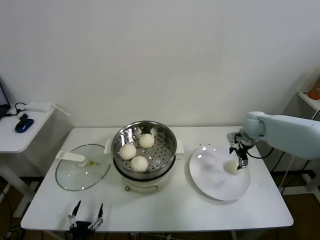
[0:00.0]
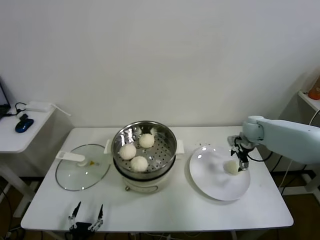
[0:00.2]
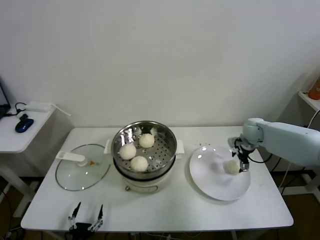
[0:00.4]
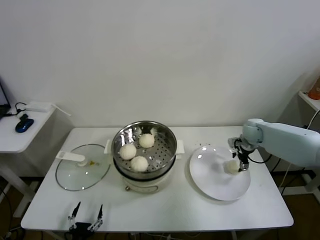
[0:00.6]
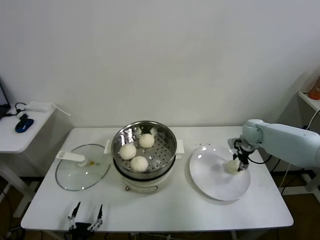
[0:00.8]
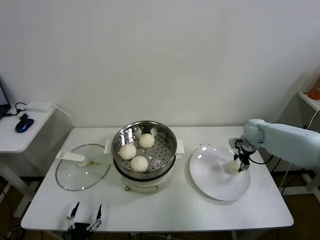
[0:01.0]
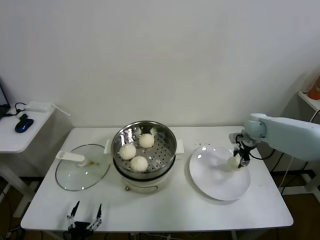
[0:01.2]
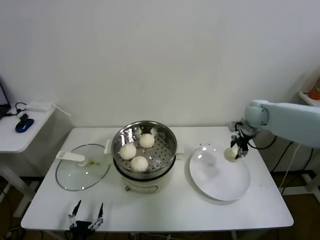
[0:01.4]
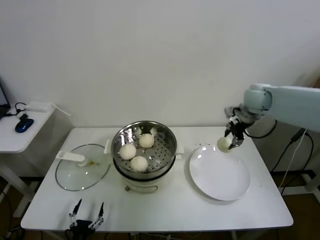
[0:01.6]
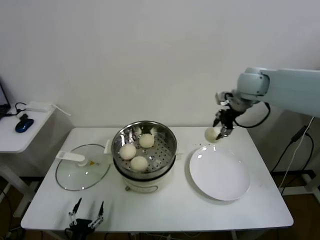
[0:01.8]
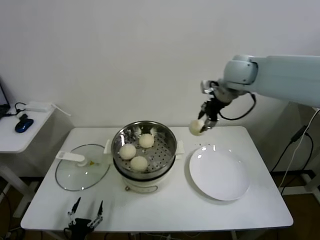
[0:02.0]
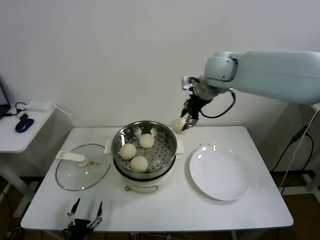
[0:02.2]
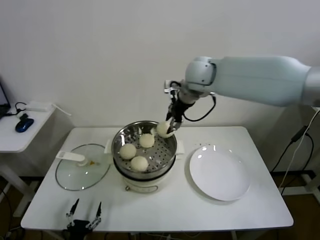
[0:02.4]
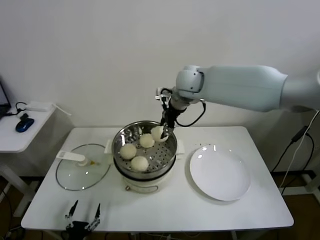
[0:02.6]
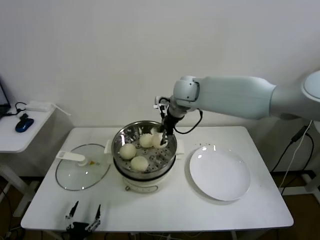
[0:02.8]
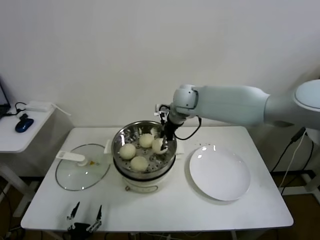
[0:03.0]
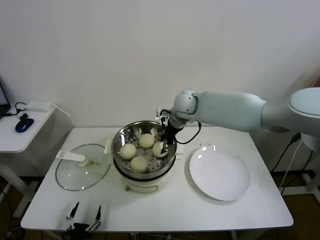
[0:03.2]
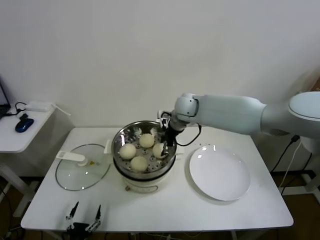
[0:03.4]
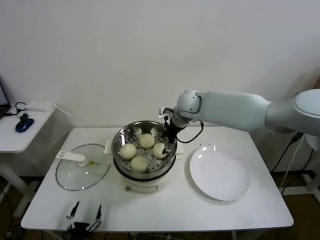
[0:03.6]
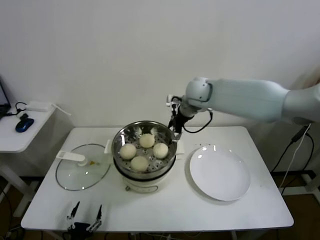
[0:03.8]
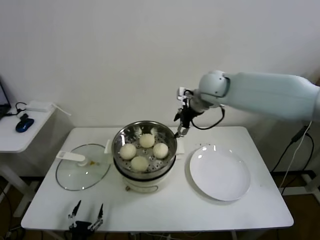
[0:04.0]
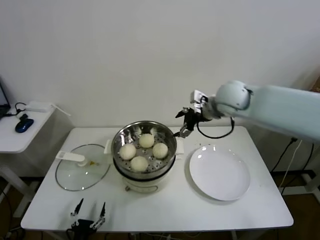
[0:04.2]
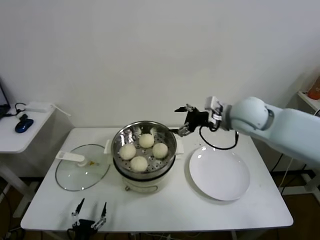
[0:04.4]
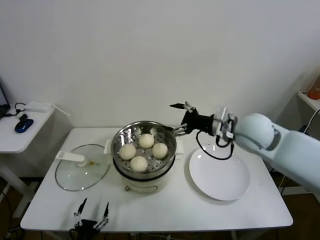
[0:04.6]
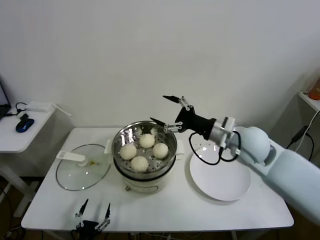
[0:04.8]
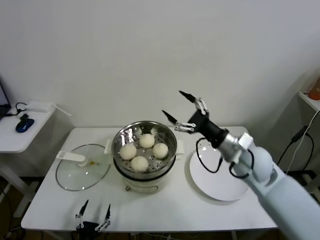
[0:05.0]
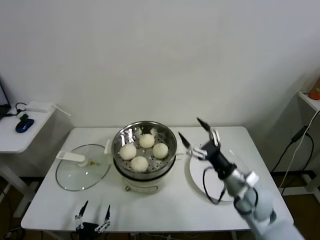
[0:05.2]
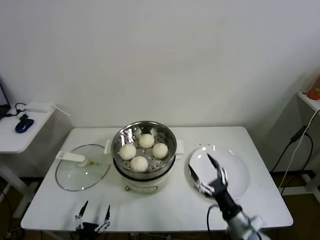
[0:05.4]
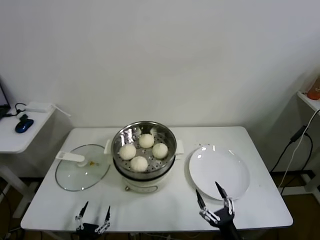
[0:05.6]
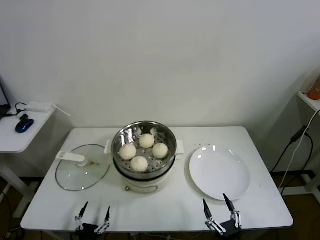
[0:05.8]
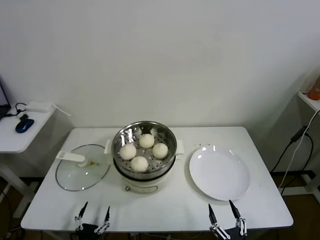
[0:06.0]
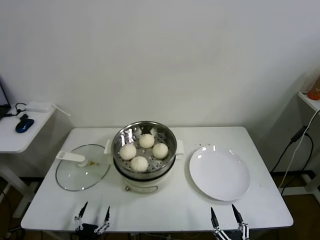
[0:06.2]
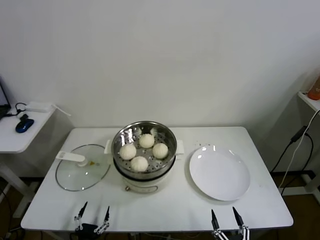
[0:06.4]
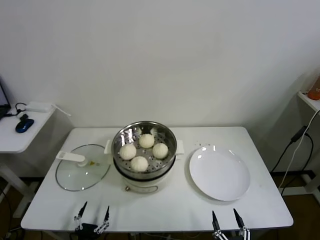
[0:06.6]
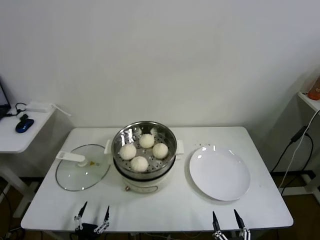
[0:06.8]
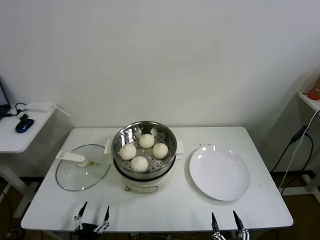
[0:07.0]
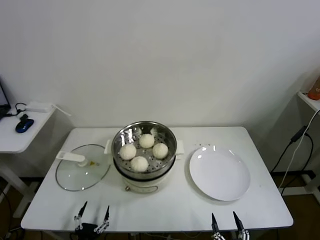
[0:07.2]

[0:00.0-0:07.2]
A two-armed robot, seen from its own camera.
Task of the whole recording: take steamed baozi put them in steamer.
Step, 0:01.0 to 0:03.6: Place the baozi on the steamer with right gripper.
0:00.0 to 0:01.4: The right gripper closes.
0:01.4 to 0:02.8: The right gripper travels to the left by about 25 cm.
0:02.8 to 0:04.4: The right gripper is displaced to the right and backward by some 20 cm, and opens.
0:04.4 to 0:05.8: The right gripper heads backward and downward, covering roughly 50 cm.
0:05.8 to 0:07.2: The right gripper shifts some 5 cm backward.
